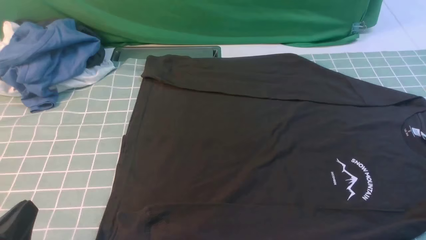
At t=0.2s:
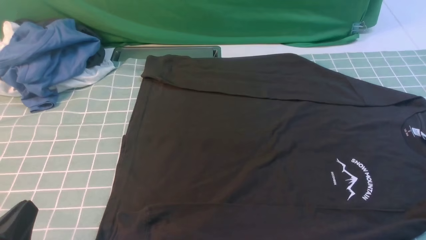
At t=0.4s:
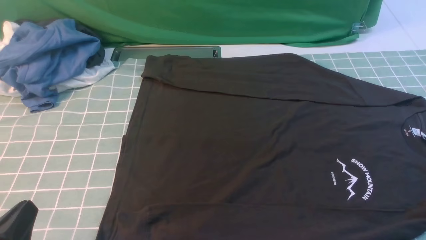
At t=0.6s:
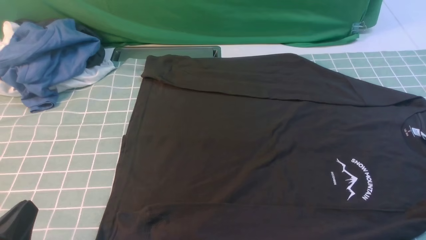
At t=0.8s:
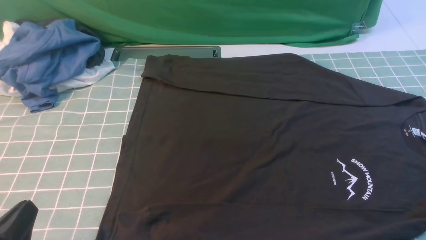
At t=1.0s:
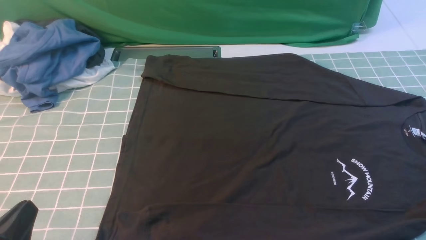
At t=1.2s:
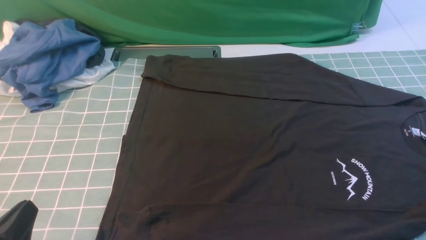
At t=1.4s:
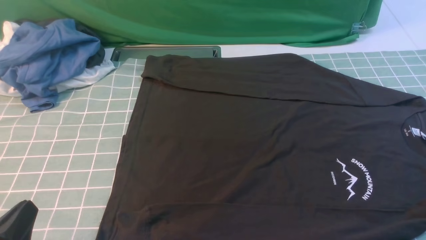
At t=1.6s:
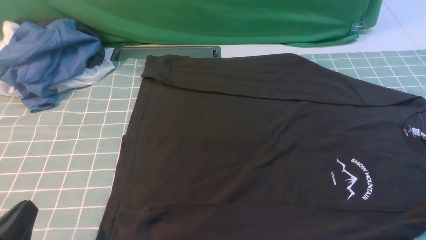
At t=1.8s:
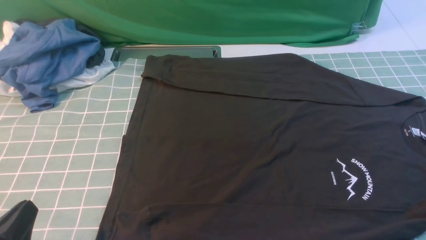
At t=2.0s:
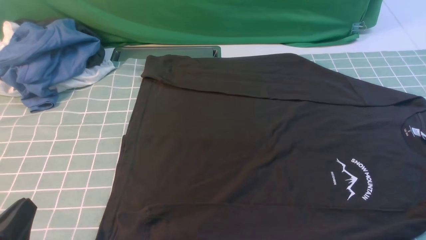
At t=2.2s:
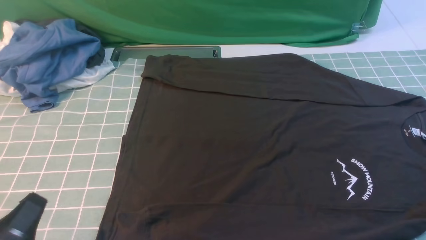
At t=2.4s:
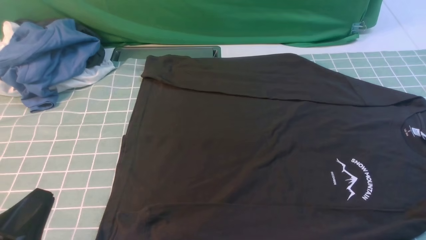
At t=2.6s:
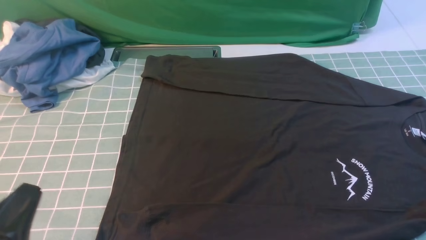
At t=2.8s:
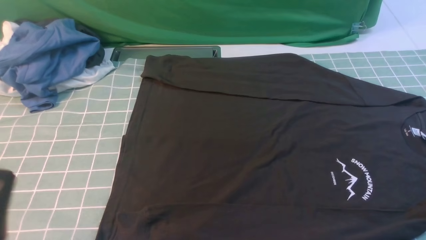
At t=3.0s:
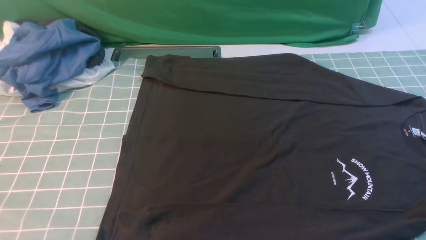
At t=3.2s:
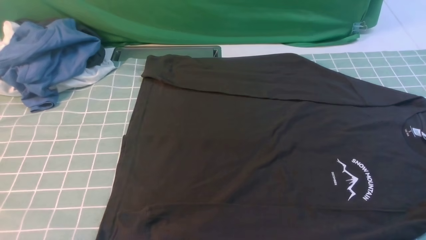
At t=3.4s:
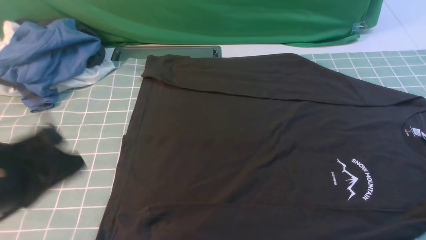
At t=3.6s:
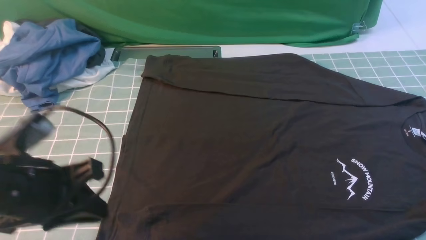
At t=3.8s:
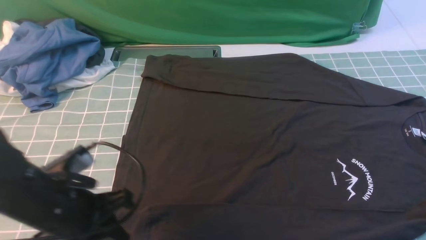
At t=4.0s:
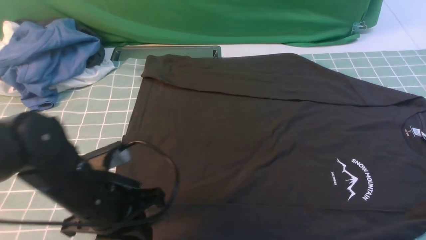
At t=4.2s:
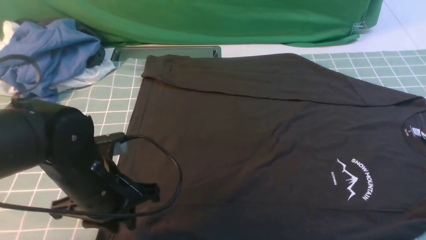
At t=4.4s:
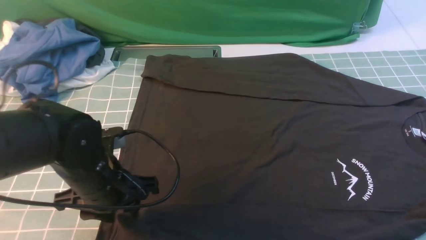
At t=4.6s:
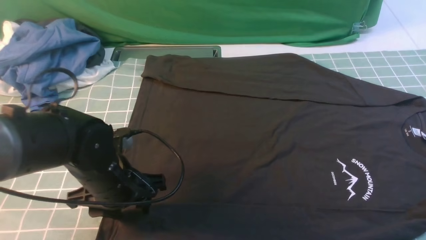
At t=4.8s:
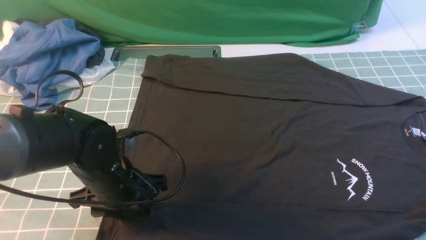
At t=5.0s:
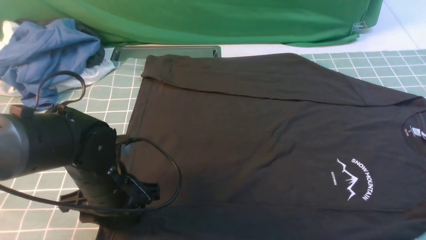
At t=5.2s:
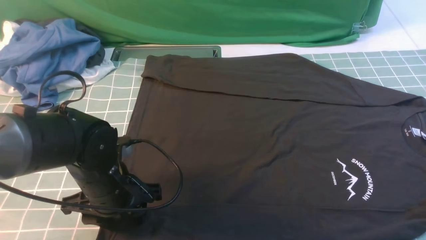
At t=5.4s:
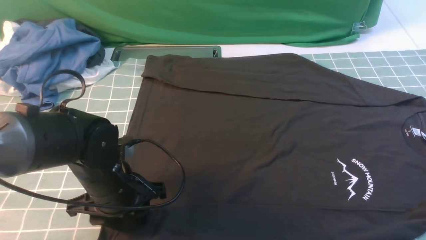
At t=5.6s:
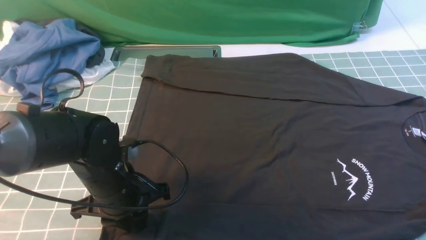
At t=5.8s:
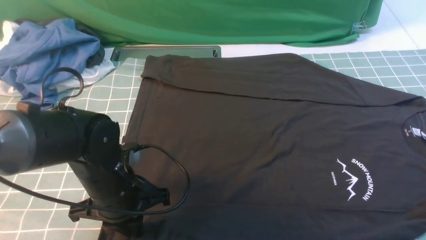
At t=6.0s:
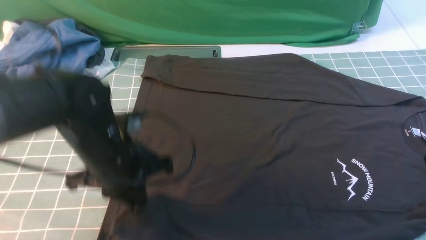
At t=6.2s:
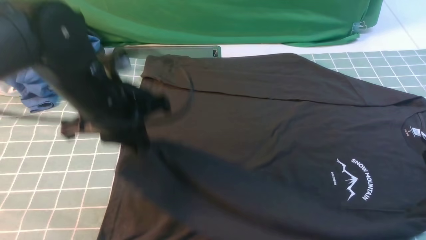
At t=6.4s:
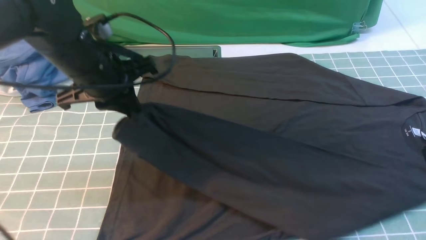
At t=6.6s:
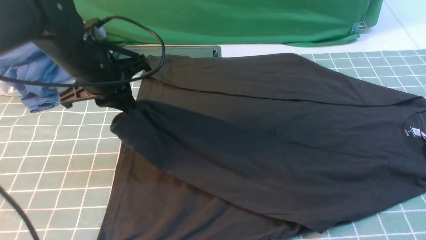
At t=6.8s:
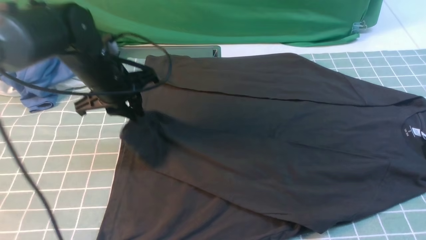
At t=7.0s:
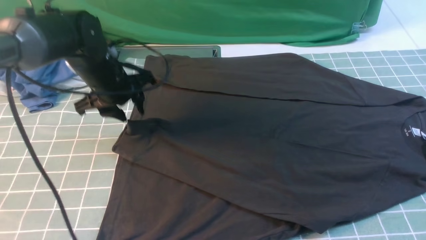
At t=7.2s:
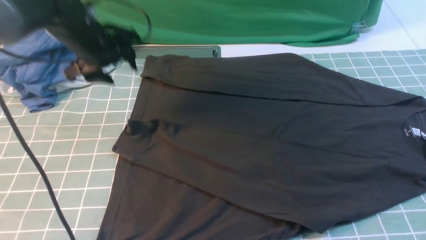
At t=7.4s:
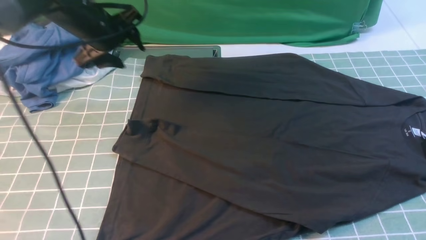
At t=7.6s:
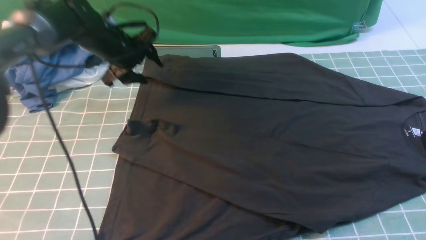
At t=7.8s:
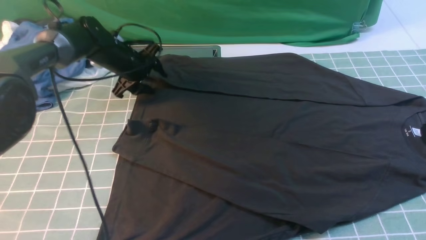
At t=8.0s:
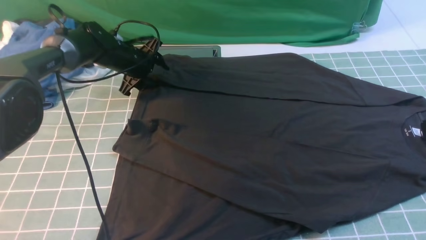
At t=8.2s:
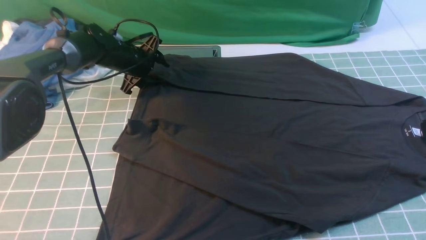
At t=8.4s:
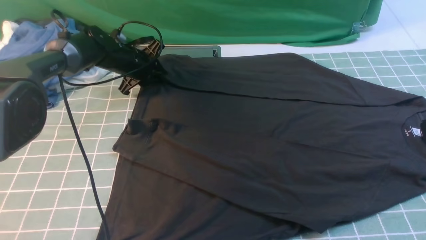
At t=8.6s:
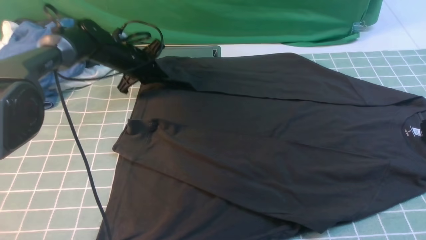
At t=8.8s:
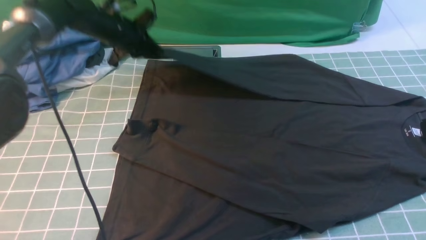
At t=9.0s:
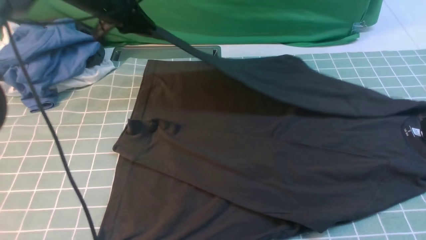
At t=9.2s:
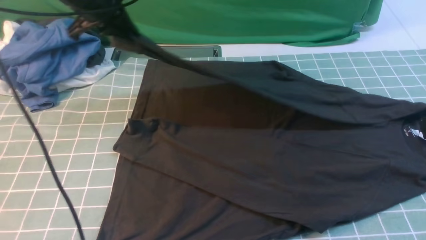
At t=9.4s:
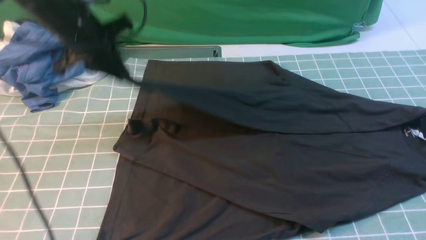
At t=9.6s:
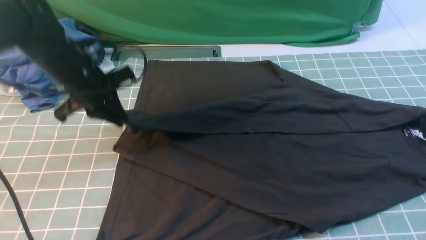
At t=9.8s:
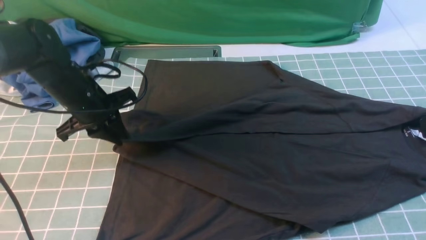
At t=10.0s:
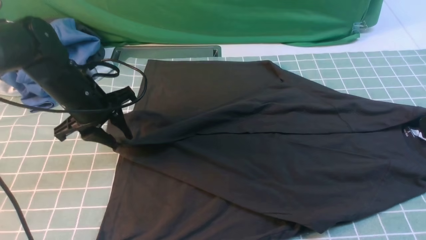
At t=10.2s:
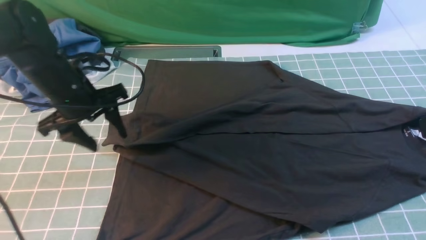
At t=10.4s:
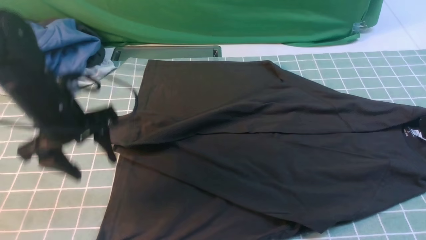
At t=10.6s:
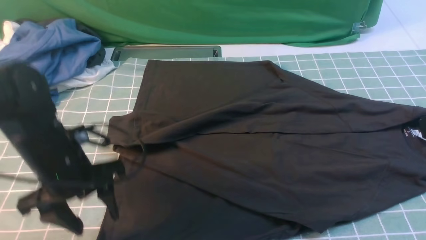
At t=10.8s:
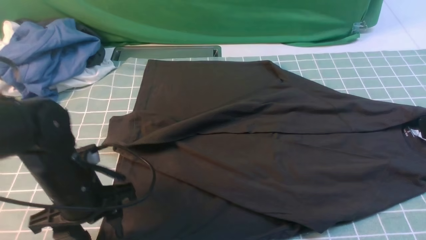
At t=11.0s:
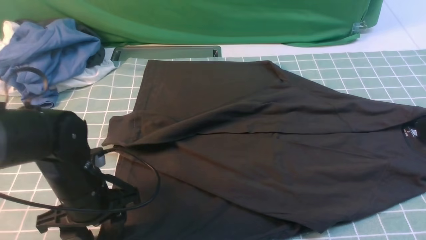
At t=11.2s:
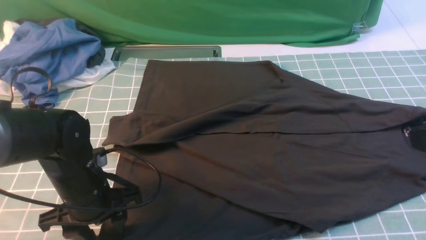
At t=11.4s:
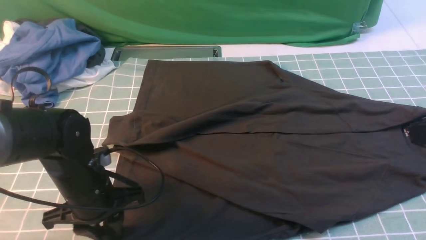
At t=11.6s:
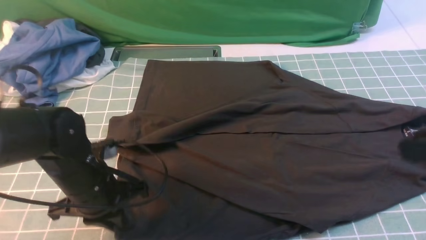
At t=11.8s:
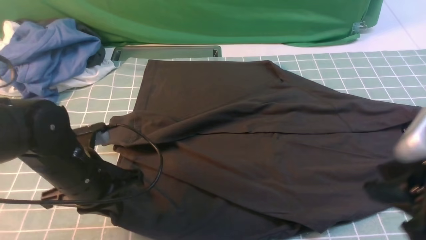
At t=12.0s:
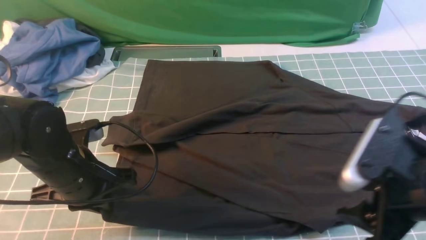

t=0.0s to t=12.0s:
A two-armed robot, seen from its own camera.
Step, t=0.0s to t=5.8s: use the left arm to clamp the cuff closest to it.
Step, t=6.0s to t=7.0s: use the left arm to drag and place the cuff at the centered position on the left edge of the fabric.
Step, t=7.2s to t=8.4s: use the left arm to clamp the cuff farthest from it.
Step, t=8.6s to t=10.0s: use the left arm to drag and drop the cuff onto the cuff closest to the left arm.
t=0.0s to t=1.6s: Both grippers stay about where they are.
t=1.6s to t=3.0s: The left gripper is displaced upward by approximately 10 cm.
t=3.0s to t=4.4s: The right gripper heads upward, covering some 15 cm, while the left gripper goes roughly 25 cm forward, downward and to the right, and opens.
t=4.4s to t=6.0s: The left gripper moves about 5 cm, and closes up.
t=6.0s to t=7.6s: The left gripper goes about 25 cm forward, and opens.
t=7.6s to t=9.0s: The left gripper moves upward, some 10 cm, and closes.
t=9.0s to t=10.4s: The left gripper shifts some 20 cm backward, and opens up.
t=10.4s to t=12.0s: The left gripper heads backward, covering roughly 5 cm, and closes; the right gripper moves downward and to the left, some 15 cm, and opens up.

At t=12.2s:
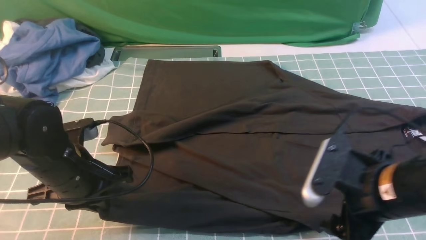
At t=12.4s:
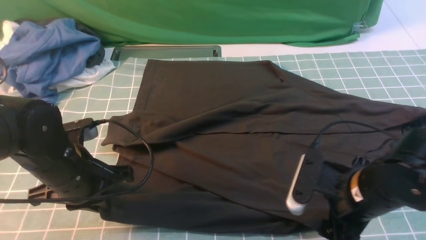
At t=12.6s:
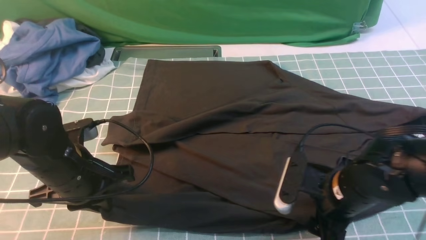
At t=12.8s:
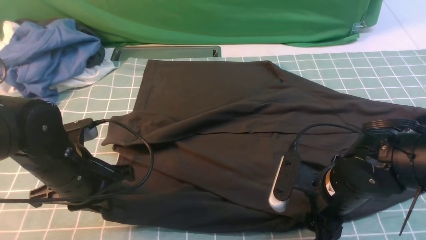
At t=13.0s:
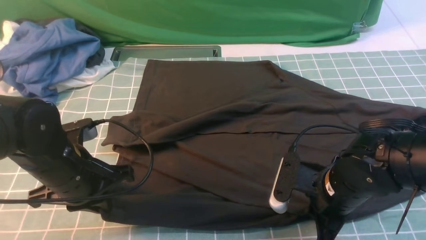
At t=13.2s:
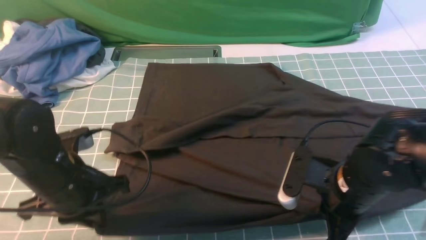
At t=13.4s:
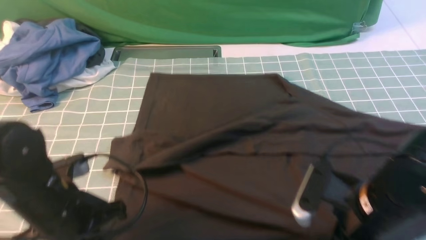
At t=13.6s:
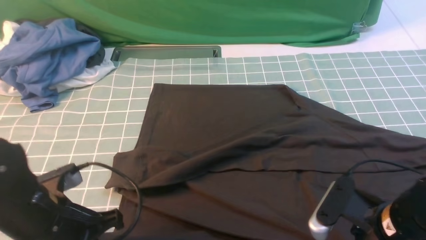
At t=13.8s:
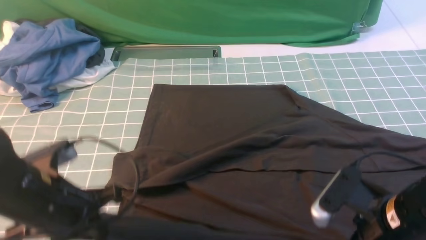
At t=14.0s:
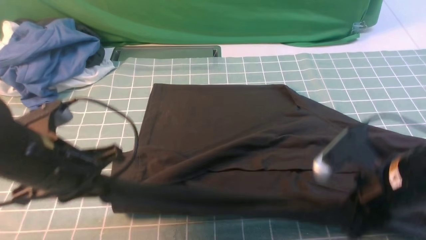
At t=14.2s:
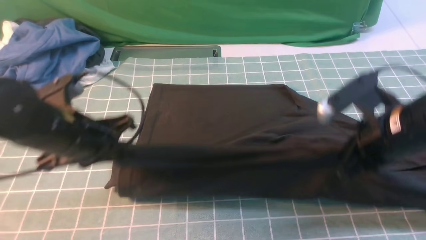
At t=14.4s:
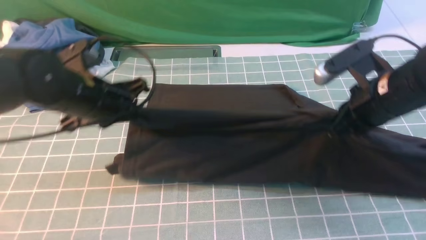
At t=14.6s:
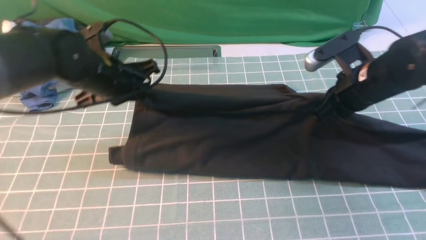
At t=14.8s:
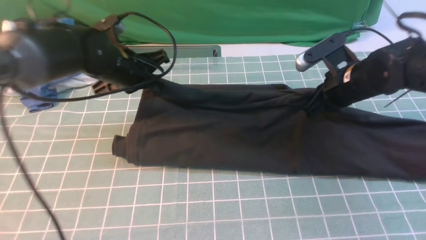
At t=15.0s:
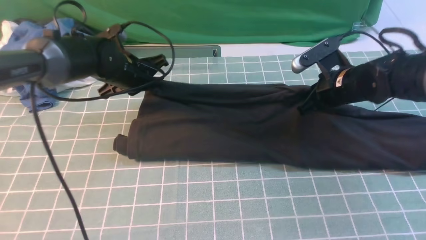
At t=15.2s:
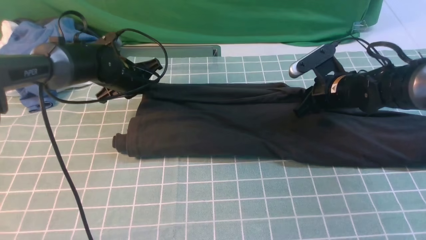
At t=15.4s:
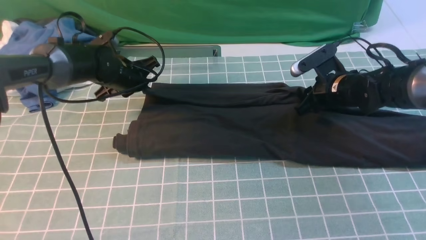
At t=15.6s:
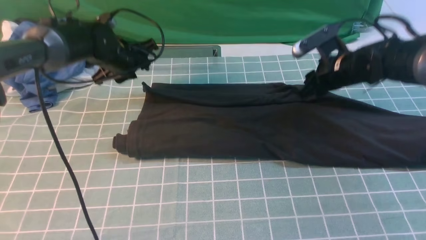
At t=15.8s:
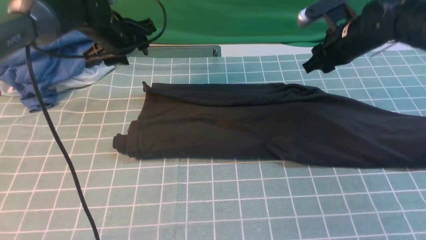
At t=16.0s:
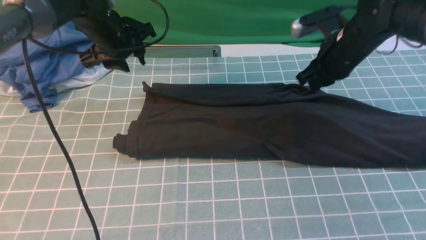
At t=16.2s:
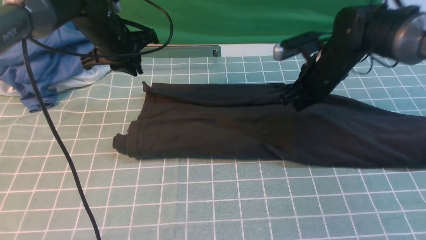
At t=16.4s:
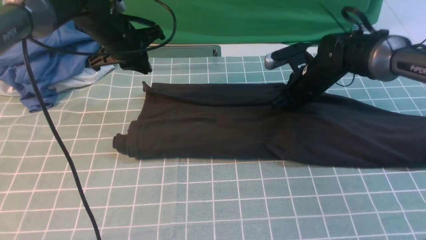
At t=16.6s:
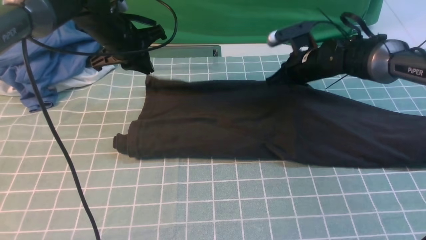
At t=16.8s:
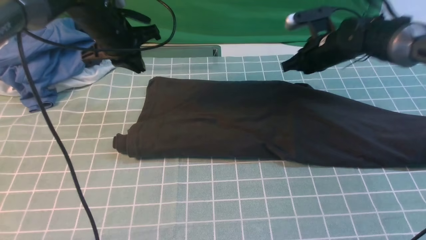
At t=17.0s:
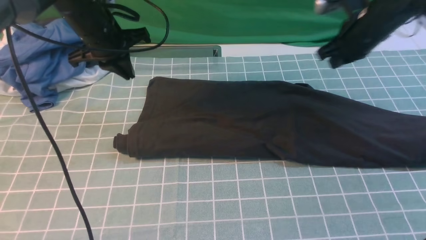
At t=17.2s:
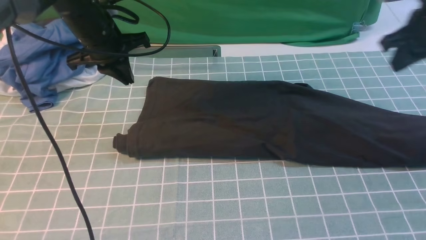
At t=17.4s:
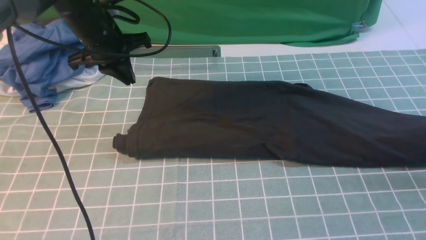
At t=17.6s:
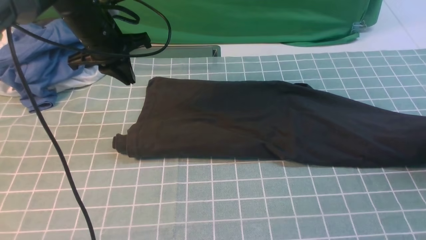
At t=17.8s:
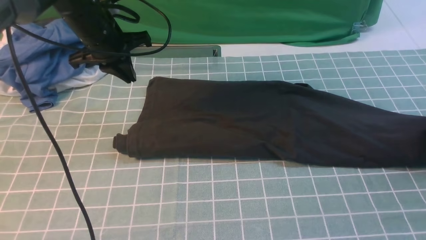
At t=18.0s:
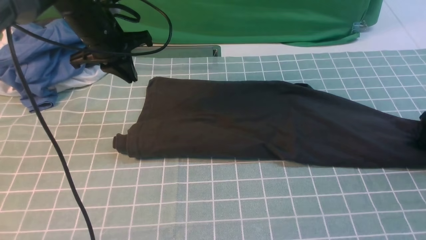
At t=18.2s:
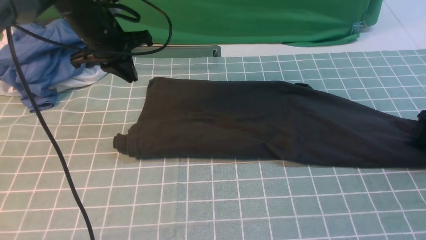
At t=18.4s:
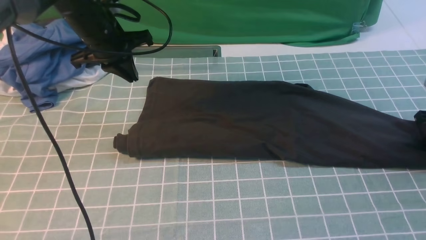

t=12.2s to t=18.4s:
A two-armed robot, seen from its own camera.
Step, t=13.0s to t=15.6s: use both arms to drag the lower edge of the fabric forward and fold it over the upper edge.
t=12.2s to t=13.8s: The left gripper is displaced backward by approximately 5 cm. Meanwhile the right gripper closes its fingers.
t=13.8s to t=15.4s: The two grippers go roughly 25 cm forward. The right gripper opens up.
t=15.4s to t=16.8s: The left gripper is displaced upward by roughly 10 cm, and opens, then closes once more. The right gripper goes up and down, approximately 5 cm each way, reversing 2 times, and closes its fingers.
t=16.8s to t=18.4s: The right gripper shifts about 25 cm to the right and backward, and opens and closes again.
